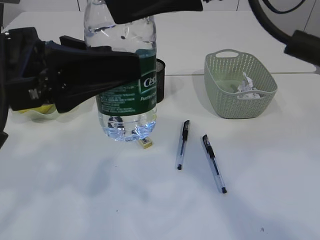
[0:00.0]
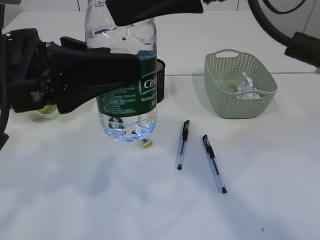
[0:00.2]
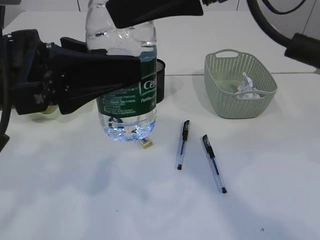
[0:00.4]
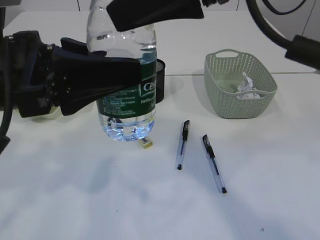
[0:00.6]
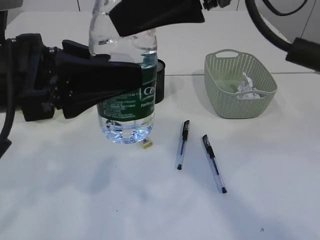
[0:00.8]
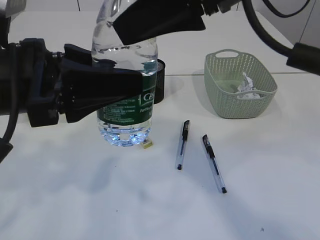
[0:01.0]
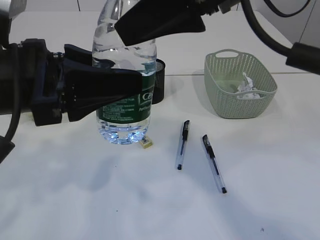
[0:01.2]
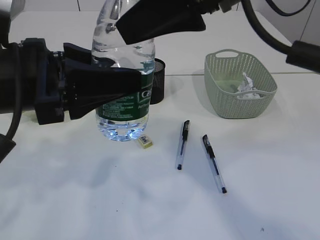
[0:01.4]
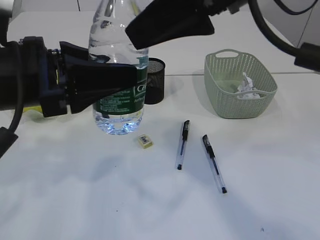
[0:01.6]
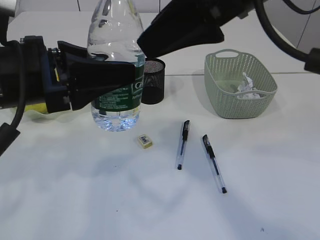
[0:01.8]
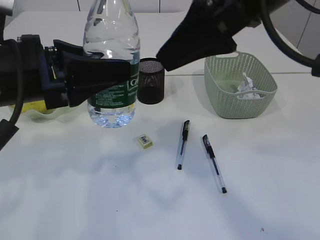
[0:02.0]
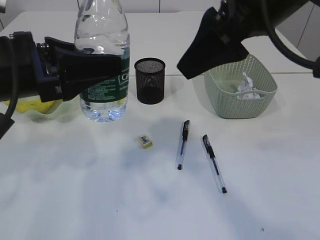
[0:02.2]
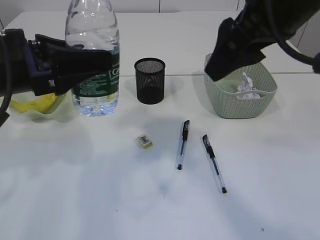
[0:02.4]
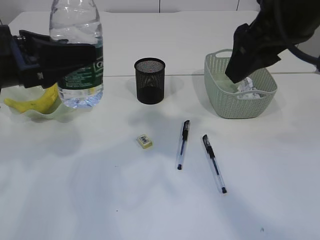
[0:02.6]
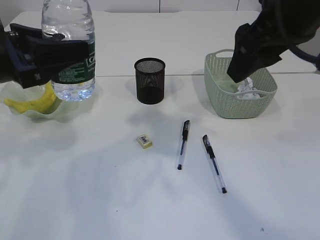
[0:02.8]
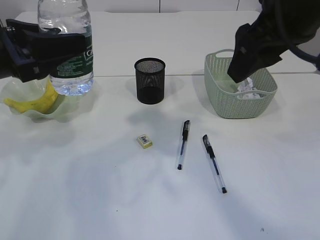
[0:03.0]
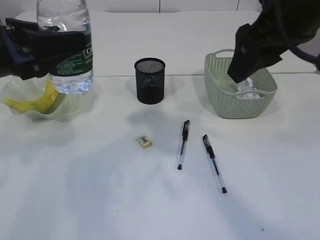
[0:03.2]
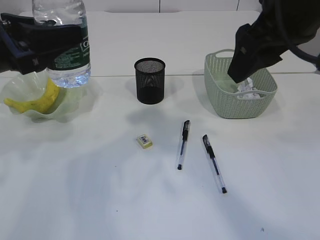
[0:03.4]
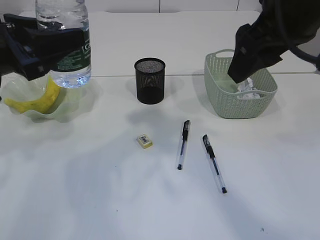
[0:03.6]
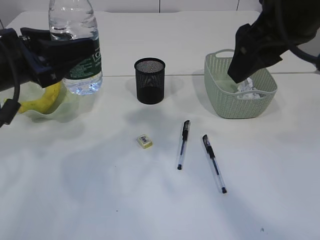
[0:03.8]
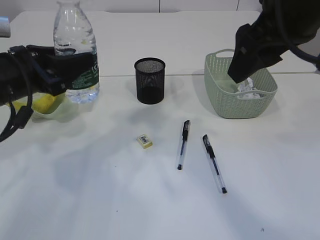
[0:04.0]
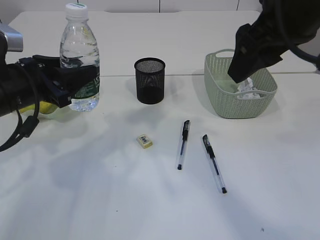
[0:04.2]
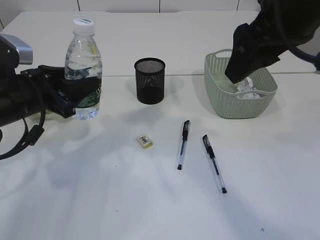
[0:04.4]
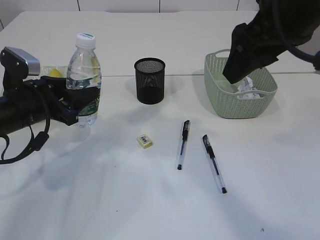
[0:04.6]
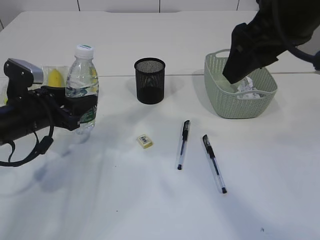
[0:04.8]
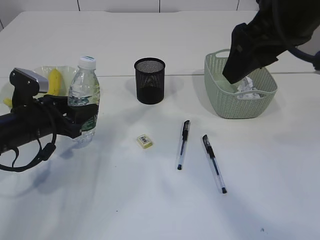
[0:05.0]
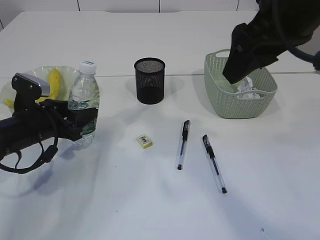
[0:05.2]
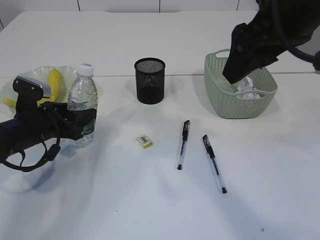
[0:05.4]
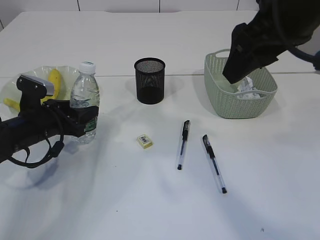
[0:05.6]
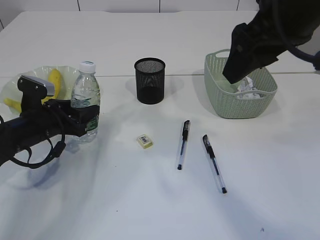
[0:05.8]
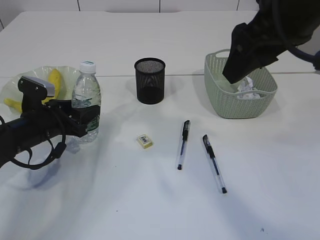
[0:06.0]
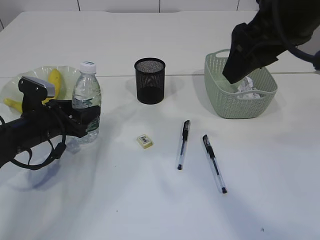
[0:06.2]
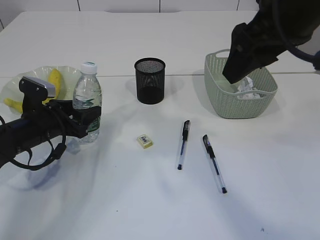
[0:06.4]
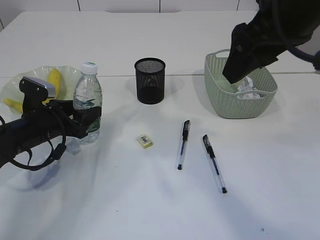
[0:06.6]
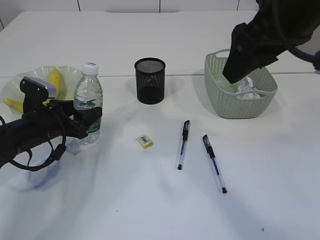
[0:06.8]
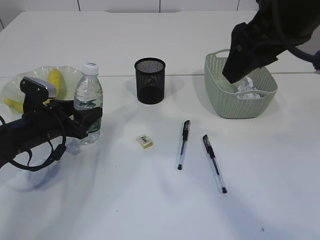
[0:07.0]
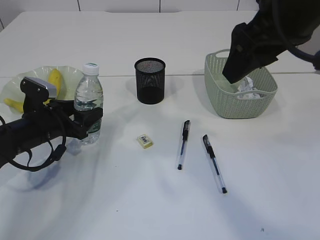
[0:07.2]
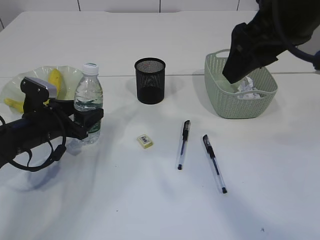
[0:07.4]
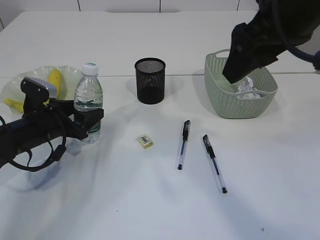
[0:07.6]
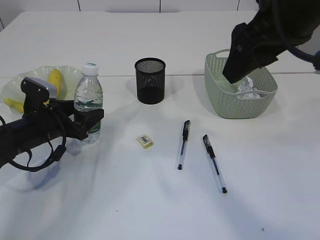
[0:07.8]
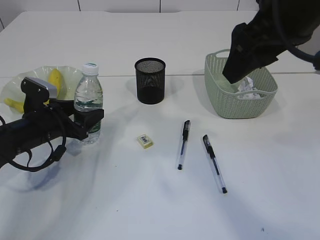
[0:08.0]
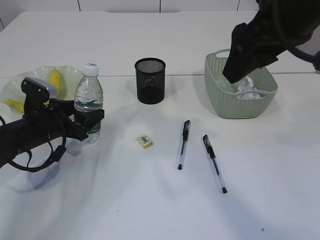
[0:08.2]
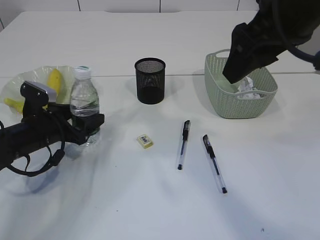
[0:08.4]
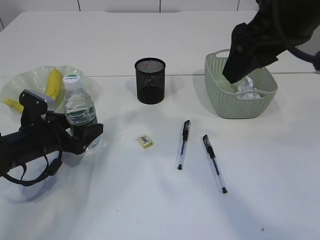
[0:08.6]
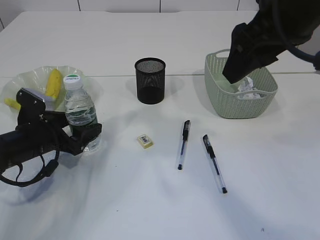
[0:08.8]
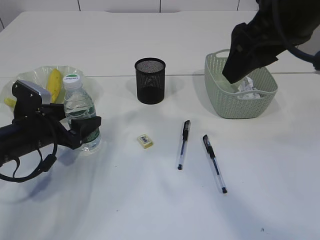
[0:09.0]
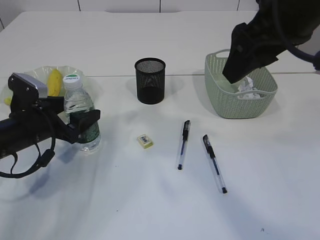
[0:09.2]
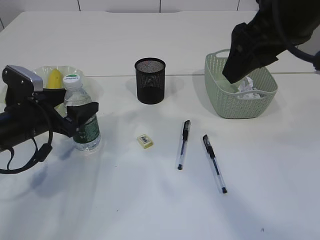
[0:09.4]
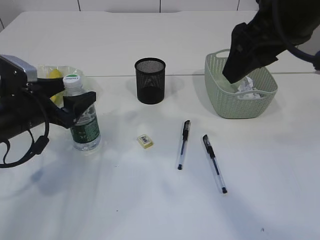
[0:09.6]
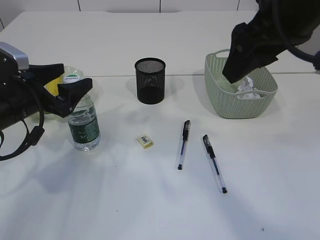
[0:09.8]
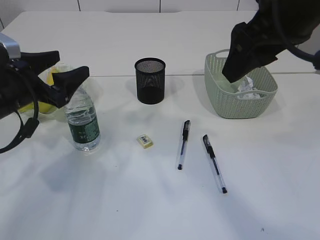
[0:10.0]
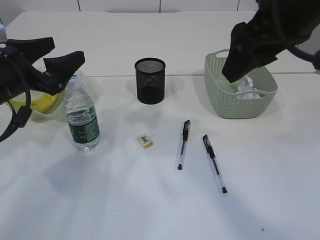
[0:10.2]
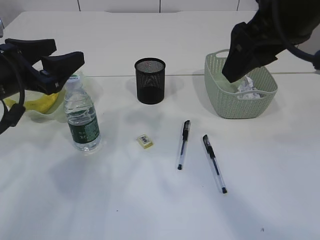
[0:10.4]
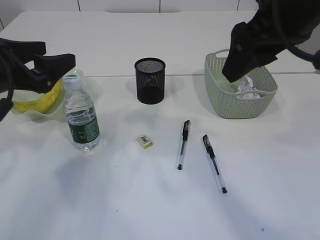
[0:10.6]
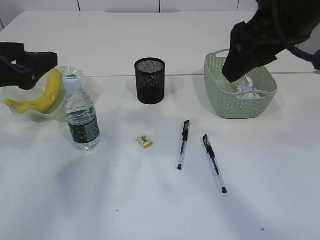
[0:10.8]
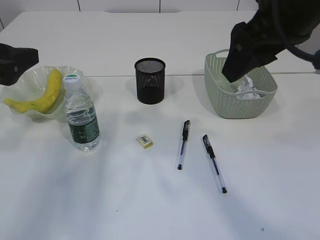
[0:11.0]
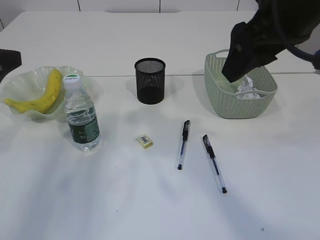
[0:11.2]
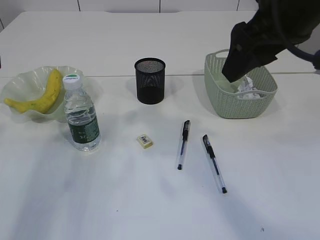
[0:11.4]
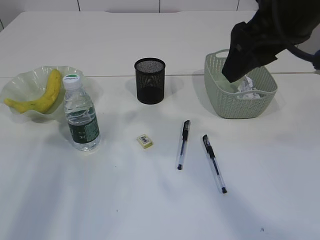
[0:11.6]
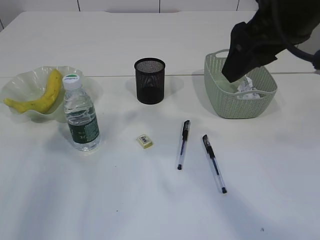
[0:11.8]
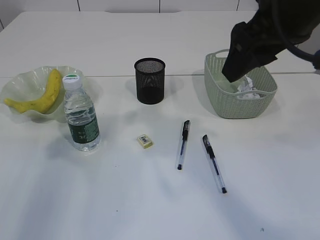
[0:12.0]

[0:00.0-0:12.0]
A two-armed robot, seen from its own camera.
Step, 0:00.0 to 0:02.0: transfer the bottle to the left arm.
Step, 0:02.2 to 0:09.6: Place the bottle.
0:00.0 to 0:01.6: The right gripper opens its fingers.
0:01.6 to 0:03.0: The right gripper moves to the right, roughly 5 cm. The left gripper goes approximately 5 cm to the left.
0:03.0 to 0:04.4: The left gripper shifts some 10 cm downward and forward.
0:04.4 to 0:06.0: The left gripper travels downward by approximately 10 cm.
0:06.0 to 0:07.6: The two grippers keep their place.
0:07.6 to 0:09.0: The grippers move only a little.
0:09.0 to 0:10.4: The left gripper moves upward, approximately 15 cm.
0:10.4 to 0:12.0: The left gripper heads upward, backward and to the left, covering about 15 cm.

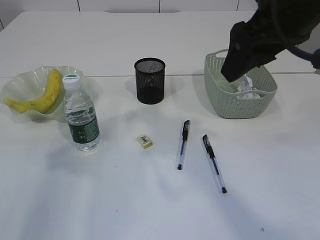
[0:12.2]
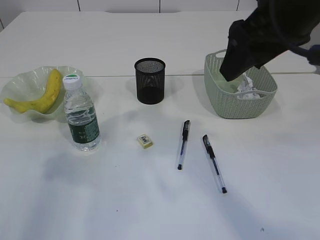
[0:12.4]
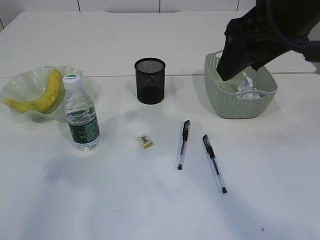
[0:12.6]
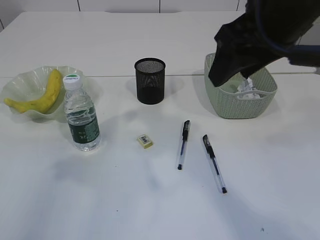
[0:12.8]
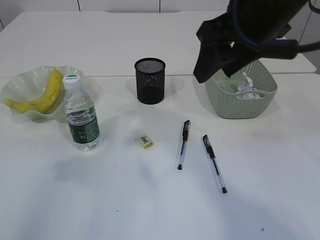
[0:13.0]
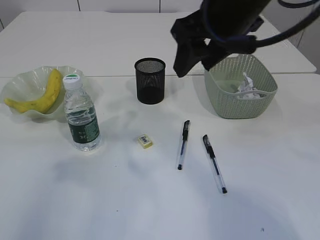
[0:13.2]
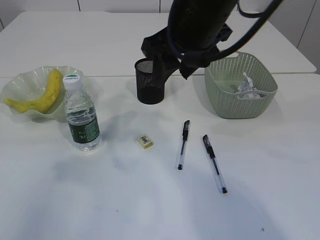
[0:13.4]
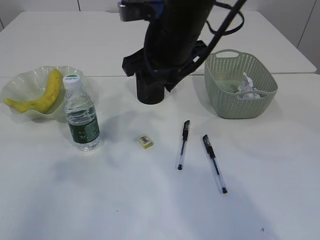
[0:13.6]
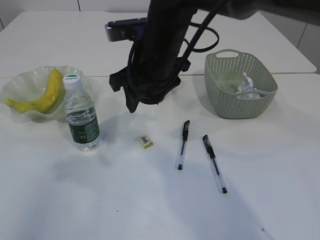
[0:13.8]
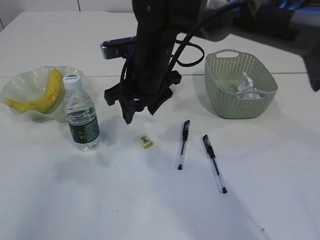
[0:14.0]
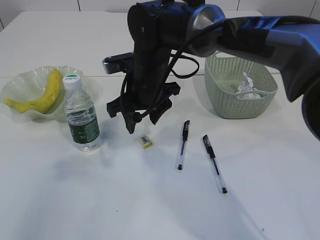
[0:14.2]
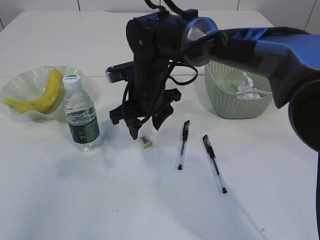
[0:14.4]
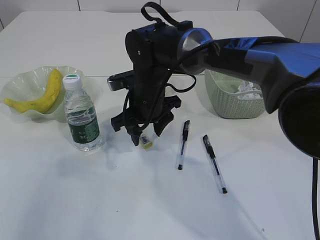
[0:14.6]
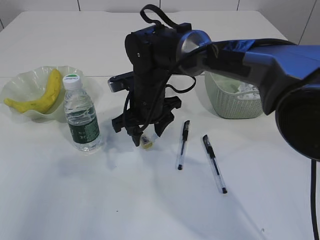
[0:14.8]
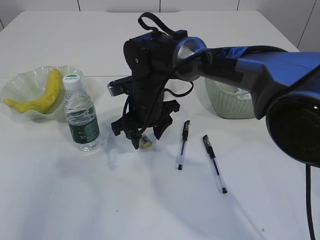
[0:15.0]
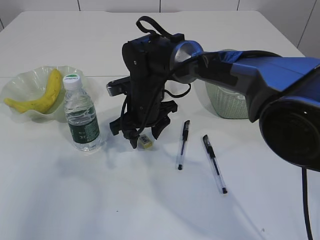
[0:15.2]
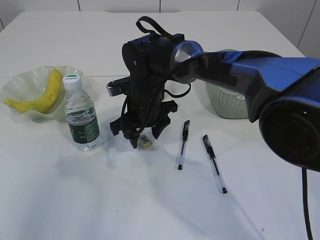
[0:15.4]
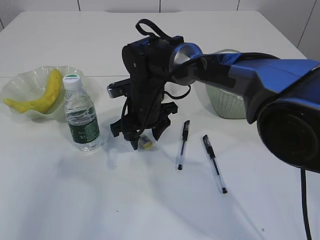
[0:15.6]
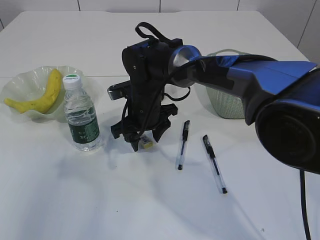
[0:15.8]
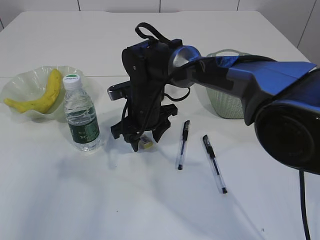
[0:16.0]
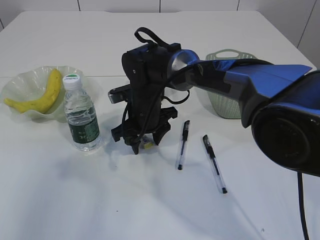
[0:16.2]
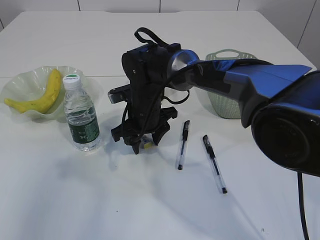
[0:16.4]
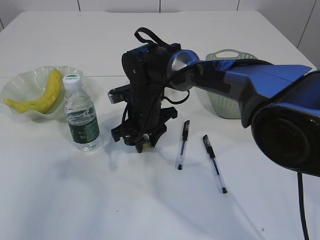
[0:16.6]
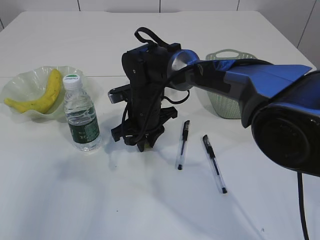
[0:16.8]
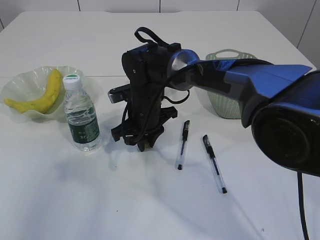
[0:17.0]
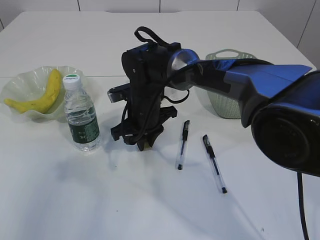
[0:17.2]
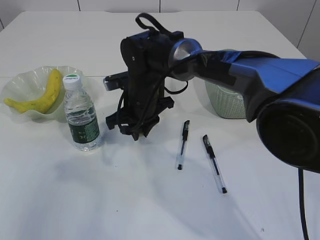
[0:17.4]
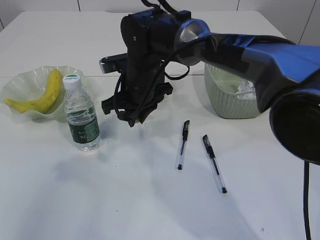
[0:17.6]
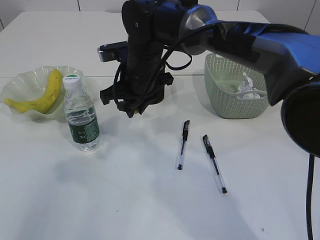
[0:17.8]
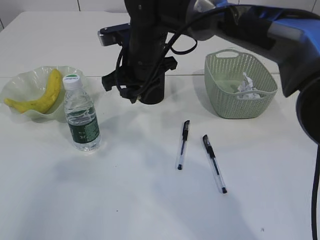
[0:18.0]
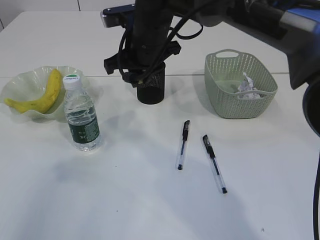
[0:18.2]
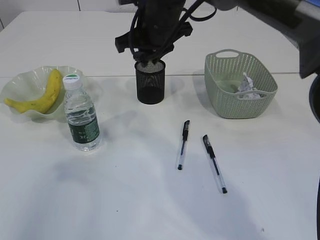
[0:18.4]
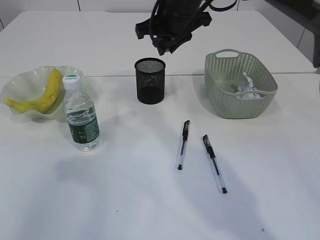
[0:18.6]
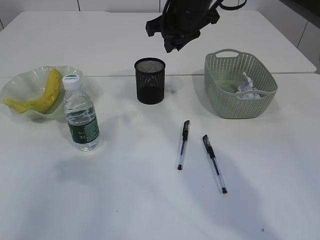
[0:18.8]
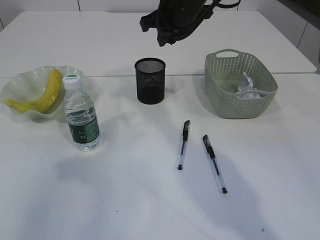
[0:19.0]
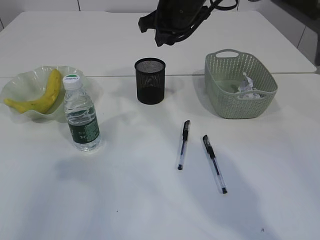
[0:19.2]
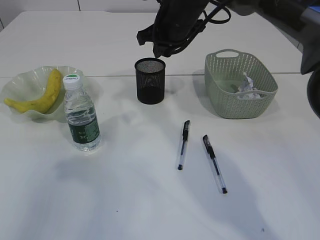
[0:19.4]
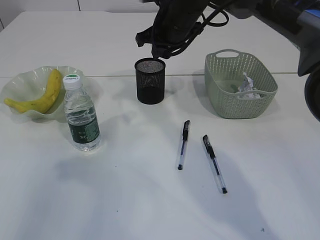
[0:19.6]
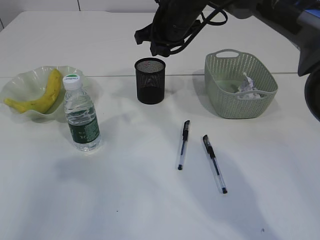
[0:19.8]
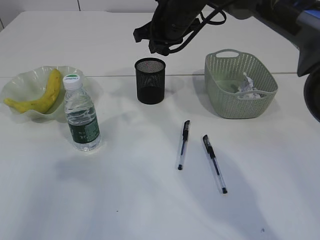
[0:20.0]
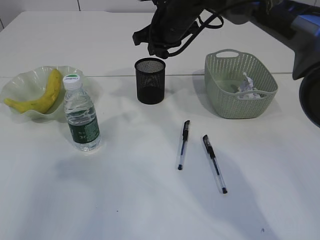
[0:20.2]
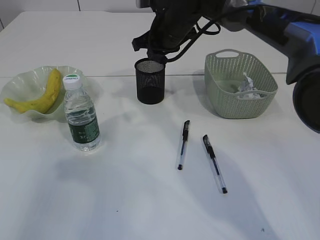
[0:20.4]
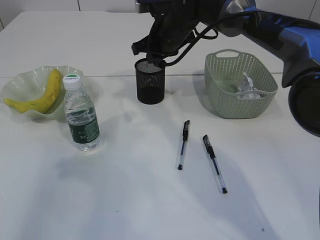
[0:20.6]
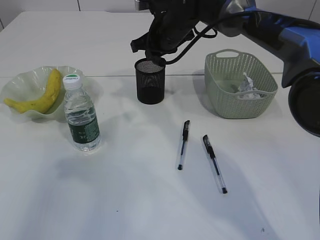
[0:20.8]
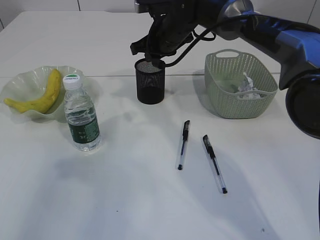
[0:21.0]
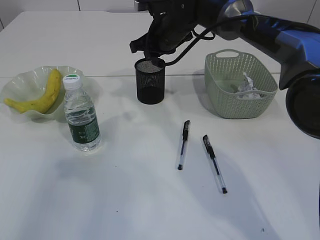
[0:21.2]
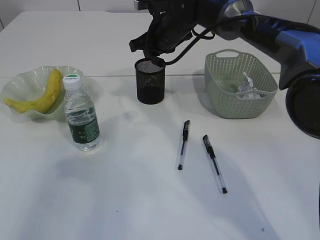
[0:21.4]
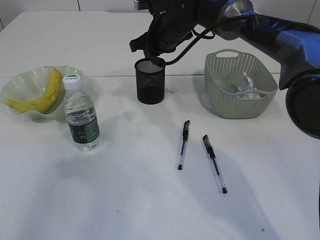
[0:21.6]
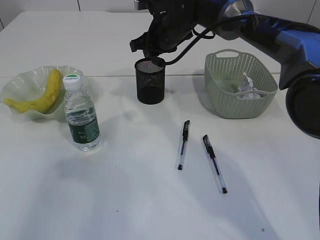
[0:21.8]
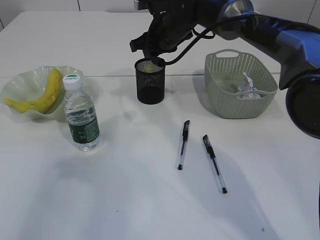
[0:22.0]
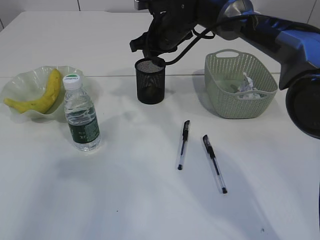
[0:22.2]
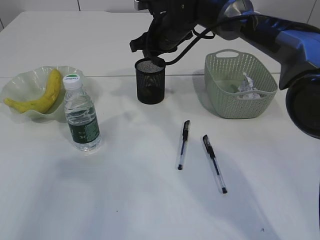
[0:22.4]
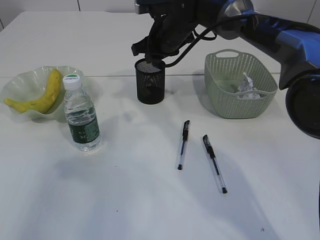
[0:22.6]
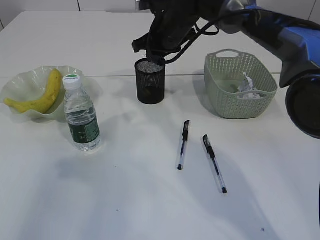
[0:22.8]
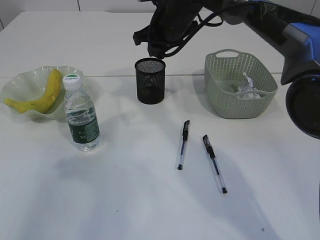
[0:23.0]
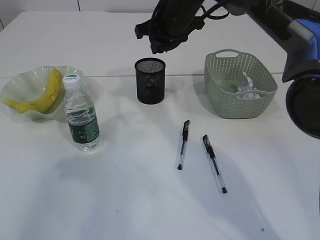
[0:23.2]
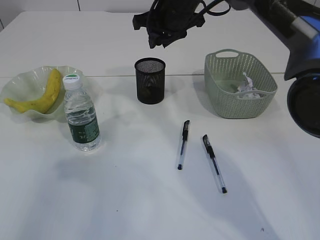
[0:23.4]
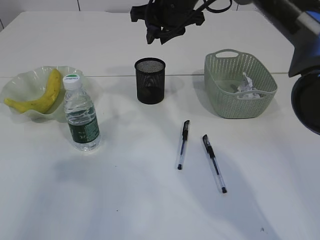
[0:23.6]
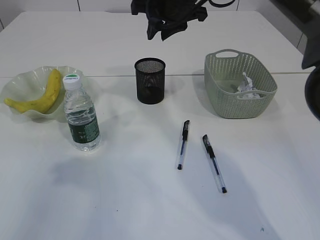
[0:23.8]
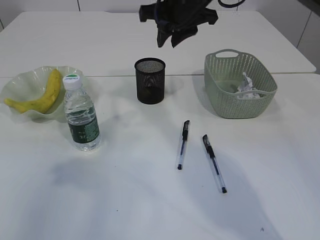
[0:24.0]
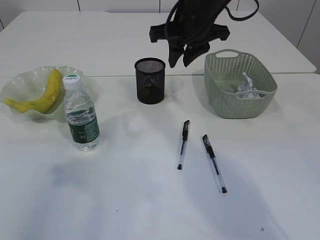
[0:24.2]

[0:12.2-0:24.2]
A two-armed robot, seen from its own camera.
Step, 0:12.2 to 0:17.4: Pick up the eraser.
Step, 0:17.2 to 0:22.0: Place the eraser into the pen holder.
0:12.2 to 0:13.8: The right gripper moves to the left, downward and forward, roughly 20 cm.
0:13.8 to 0:15.2: The right gripper travels downward by some 10 cm.
0:15.2 to 0:16.6: There are only small adjustments of the grippers.
0:16.6 to 0:18.2: The right gripper heads upward, covering some 15 cm.
0:18.2 to 0:19.8: The right gripper goes approximately 10 cm forward and to the right.
0:19.8 to 0:21.2: There are only small adjustments of the grippers.
0:21.2 to 0:22.6: The two grippers keep their place.
0:22.6 to 0:24.2: The right gripper shifts some 10 cm backward and upward.
